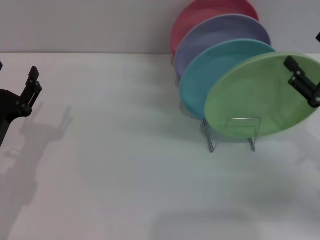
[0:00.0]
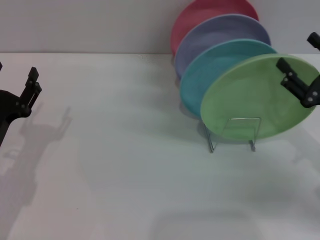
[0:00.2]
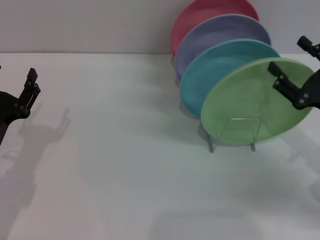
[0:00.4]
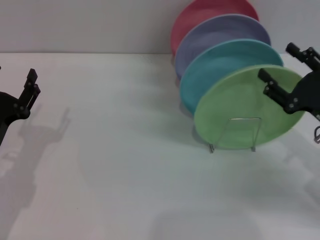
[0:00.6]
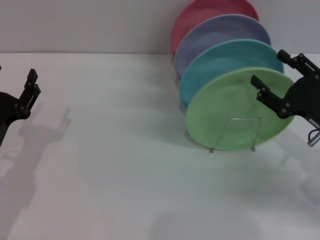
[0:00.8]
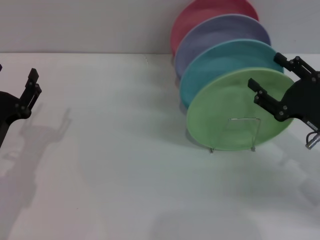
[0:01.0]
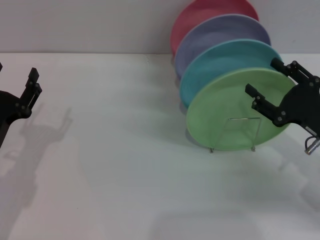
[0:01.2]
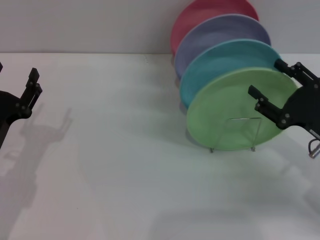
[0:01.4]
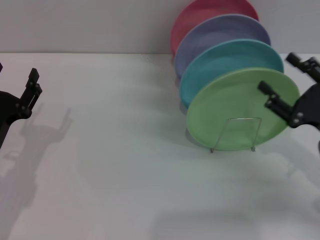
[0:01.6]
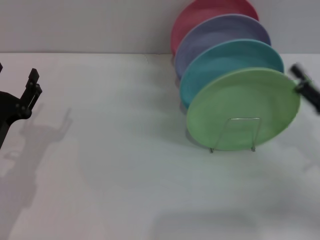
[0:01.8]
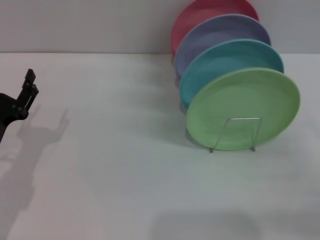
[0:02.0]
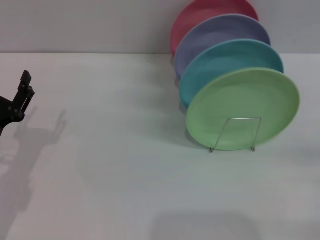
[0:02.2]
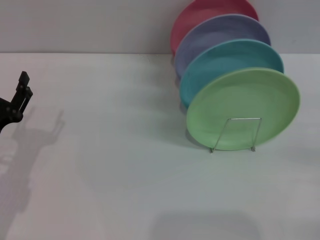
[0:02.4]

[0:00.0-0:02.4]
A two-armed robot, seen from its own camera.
Task of the whole recording: Grip the plate with one hand, pass it to the other, then set it on the shelf.
0:00.0 to 0:01.2: There are only small adjustments of the grippers.
0:01.2 to 0:02.4: The right gripper heads to the right and backward, covering some 15 cm.
